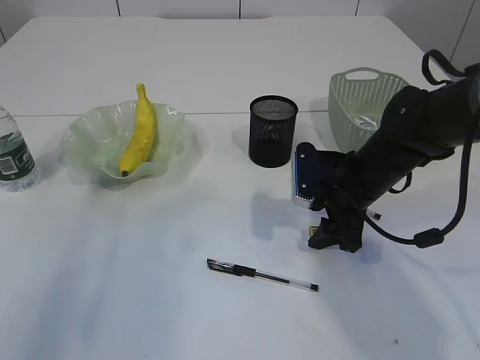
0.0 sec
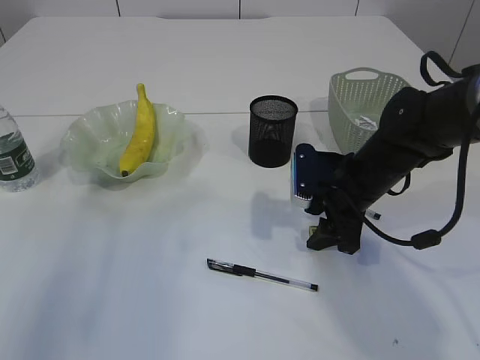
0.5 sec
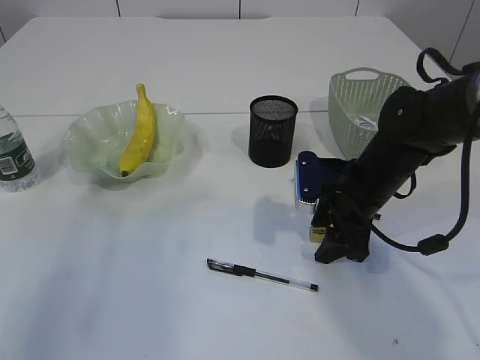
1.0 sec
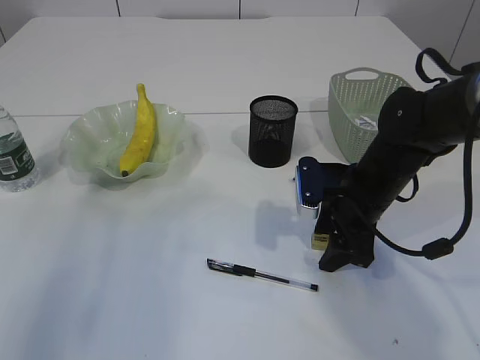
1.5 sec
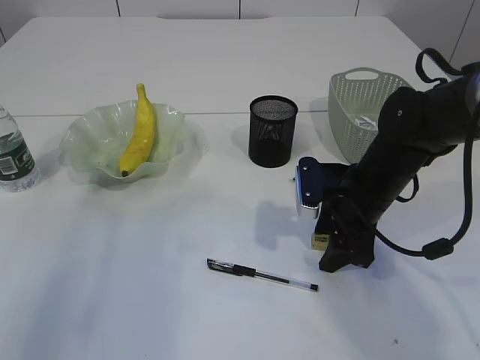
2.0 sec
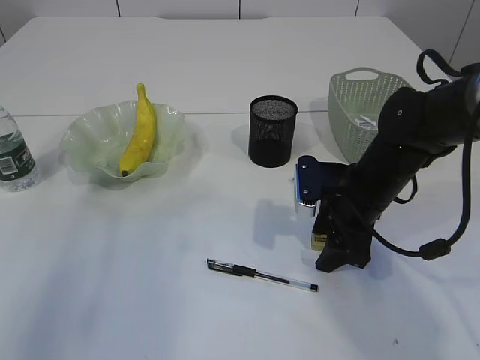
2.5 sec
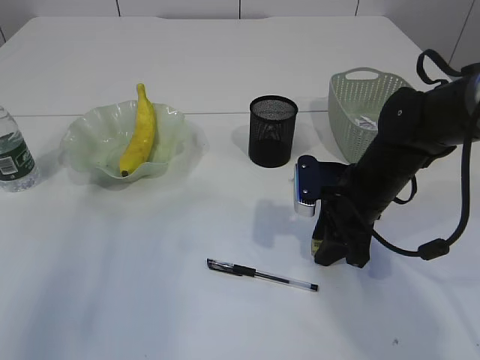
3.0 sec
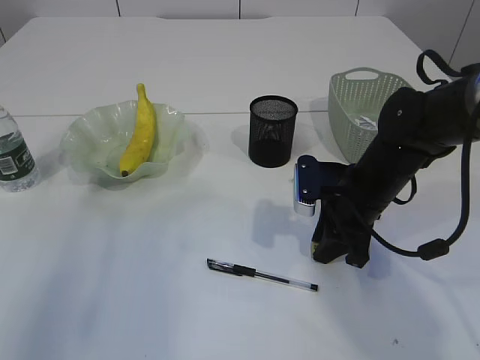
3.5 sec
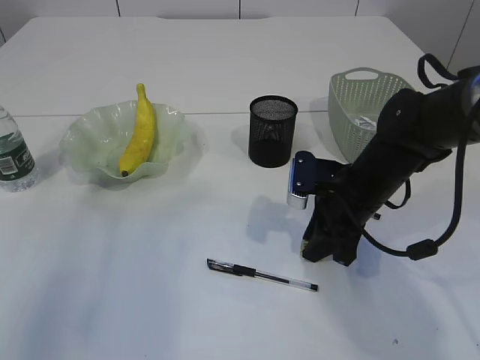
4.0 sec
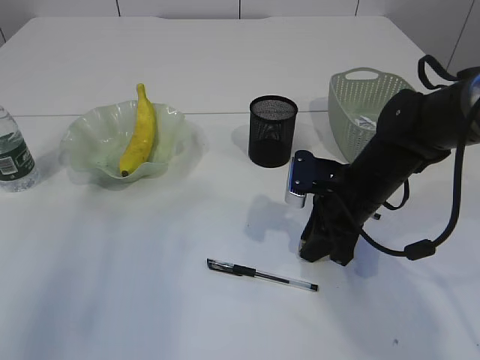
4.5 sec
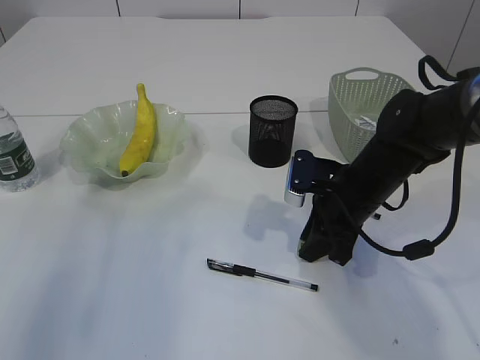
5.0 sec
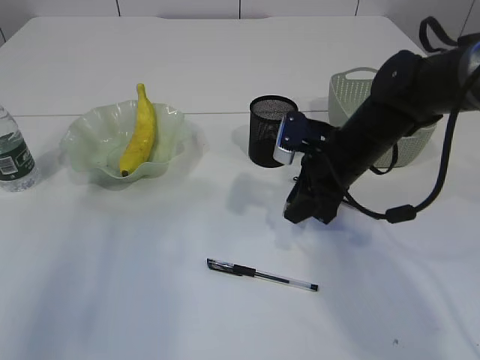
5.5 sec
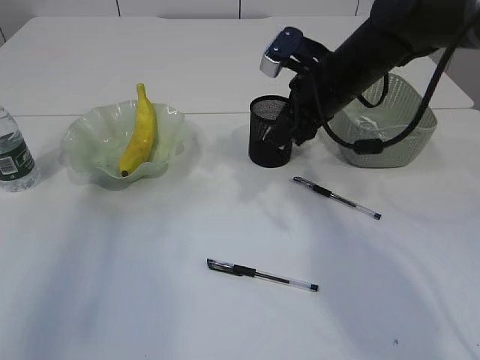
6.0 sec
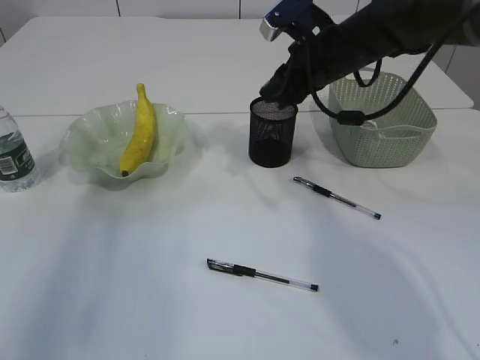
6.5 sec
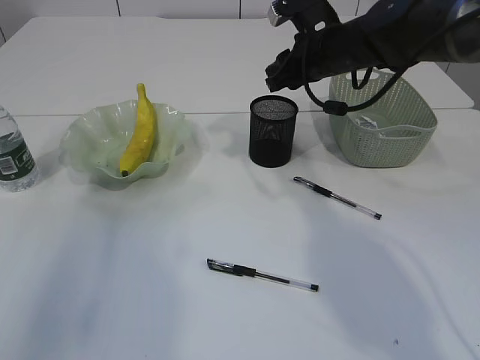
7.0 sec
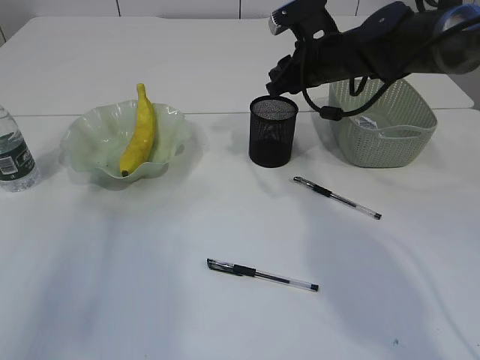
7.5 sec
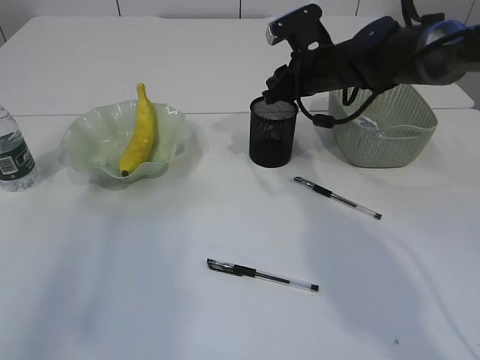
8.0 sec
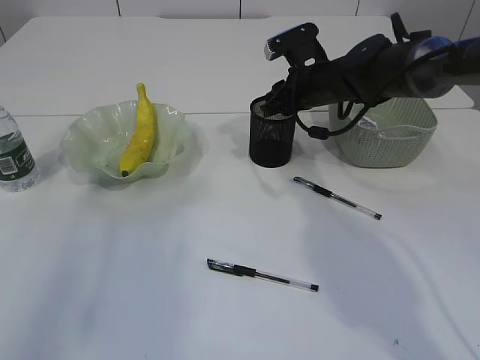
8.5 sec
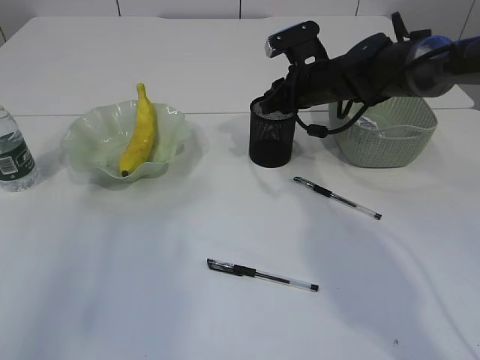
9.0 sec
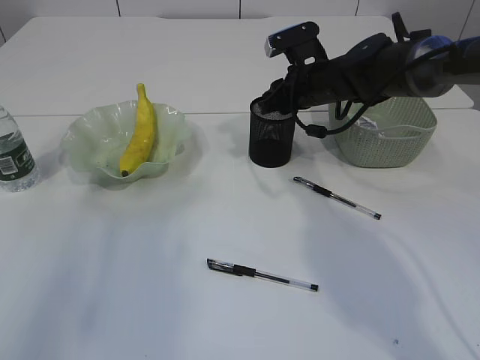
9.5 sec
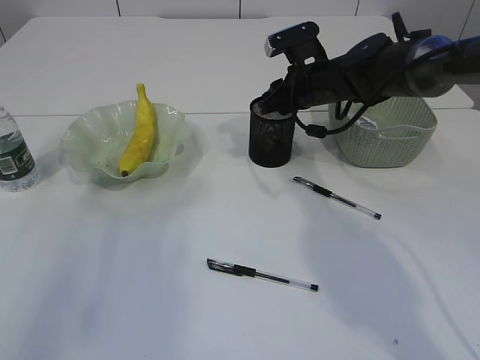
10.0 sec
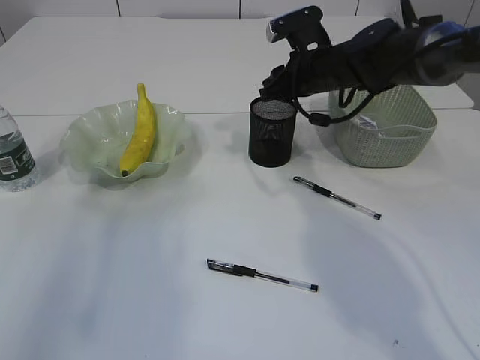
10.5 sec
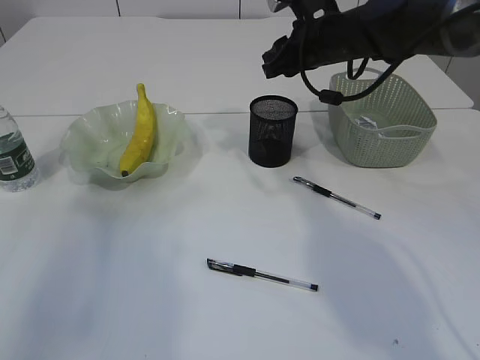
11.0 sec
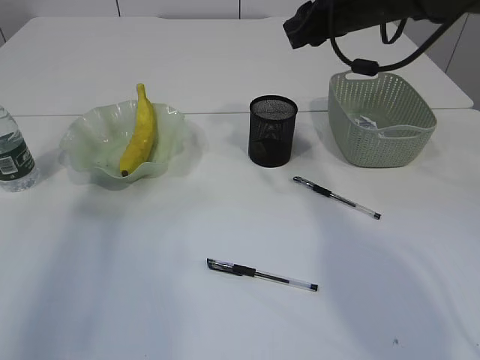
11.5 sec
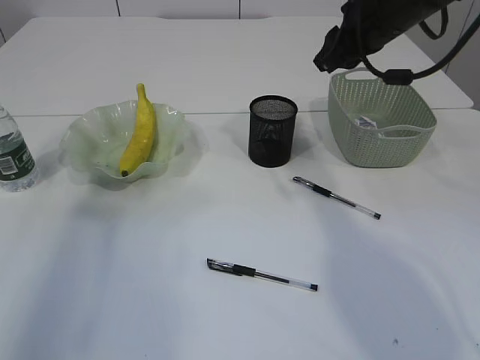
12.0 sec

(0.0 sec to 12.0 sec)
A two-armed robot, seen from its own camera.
Step, 0.0 sec - 5.5 sec: Pick up the eraser.
Step, 6.0 sec - 11.0 sec: Place the eraser into the pen holder.
0.0 sec - 2.0 sec: There are only small adjustments of the grippers.
2.0 sec - 4.0 sec: The right gripper closes its fingers.
4.0 sec - 6.0 sec: The right gripper shifts approximately 15 cm upward and forward.
6.0 sec - 8.0 sec: The right gripper shifts some 10 cm forward.
8.0 sec - 10.0 sec: The grippers stay close to where they were, moving slightly.
10.0 sec - 12.0 sec: The right gripper travels upward and backward by approximately 15 cm.

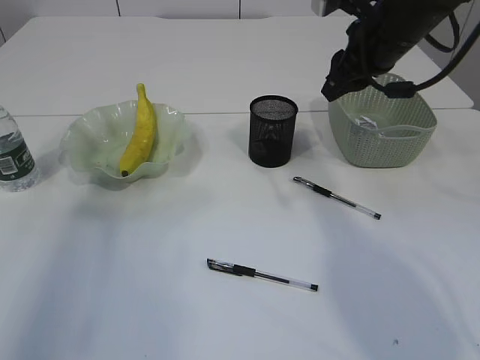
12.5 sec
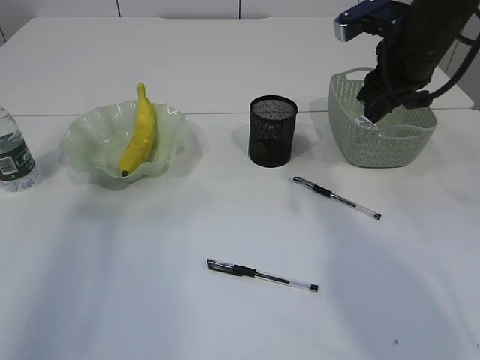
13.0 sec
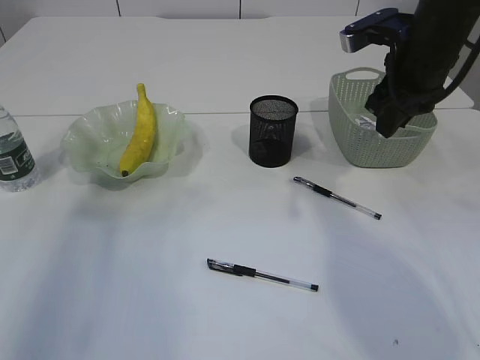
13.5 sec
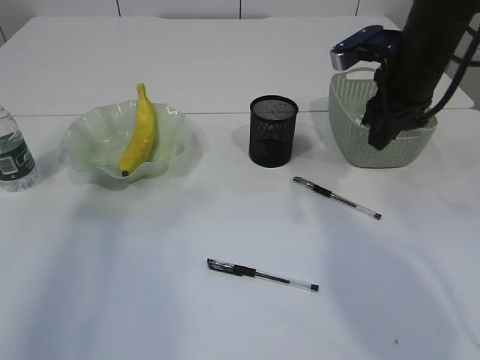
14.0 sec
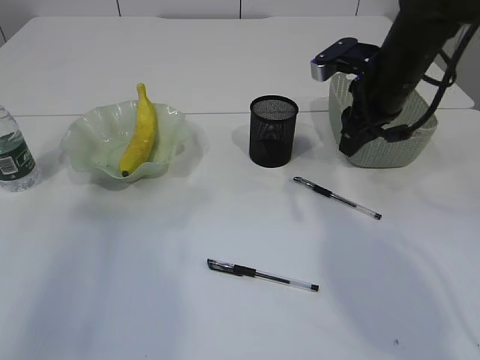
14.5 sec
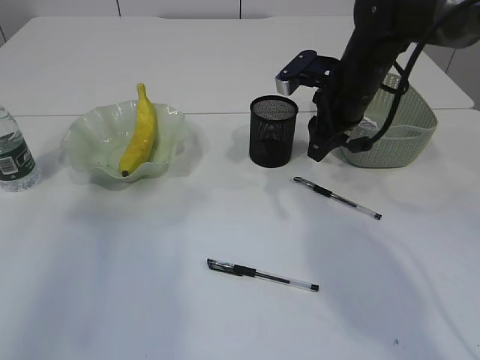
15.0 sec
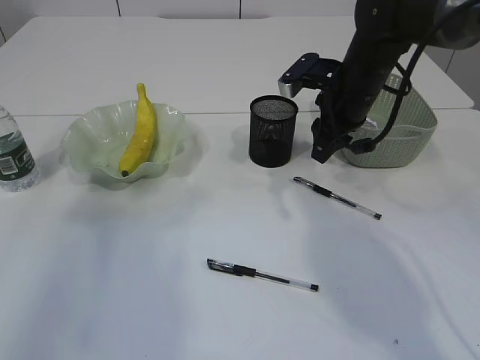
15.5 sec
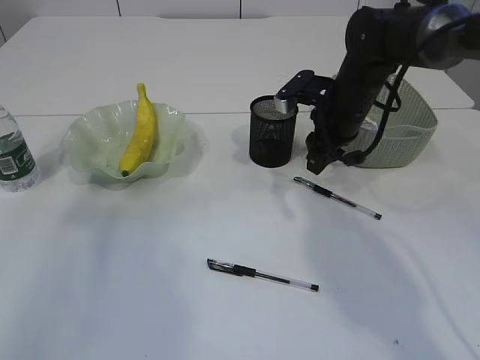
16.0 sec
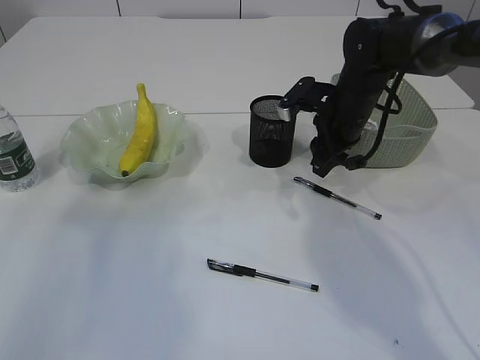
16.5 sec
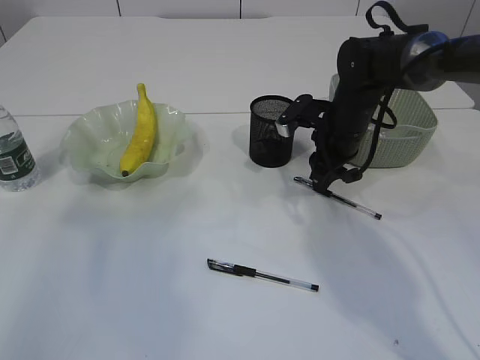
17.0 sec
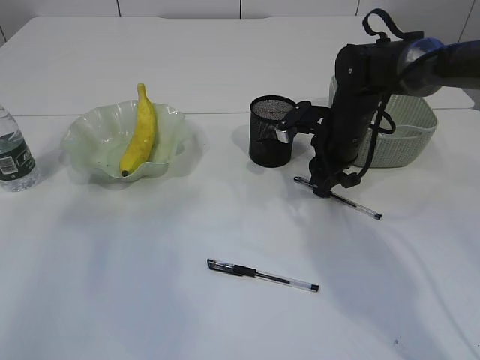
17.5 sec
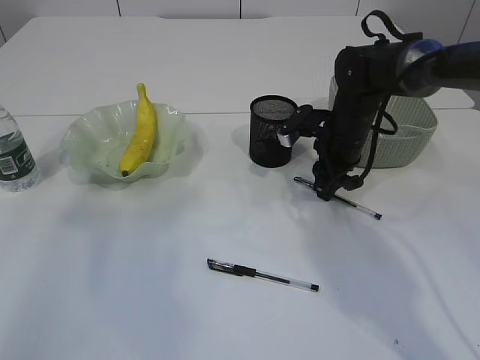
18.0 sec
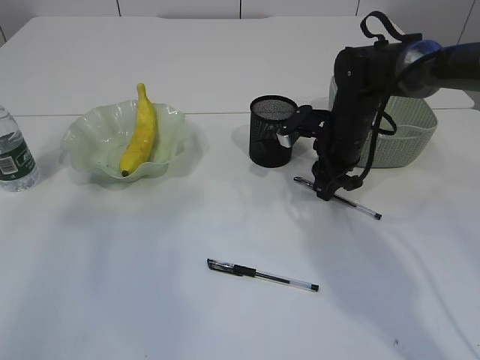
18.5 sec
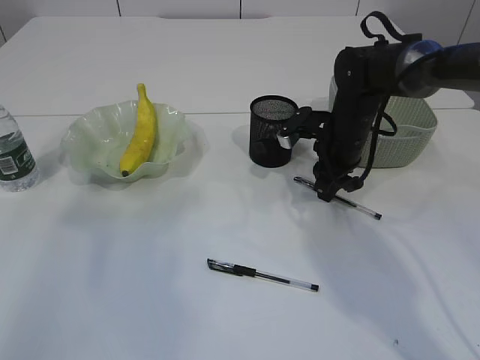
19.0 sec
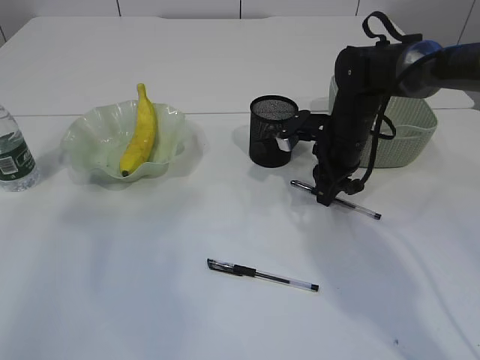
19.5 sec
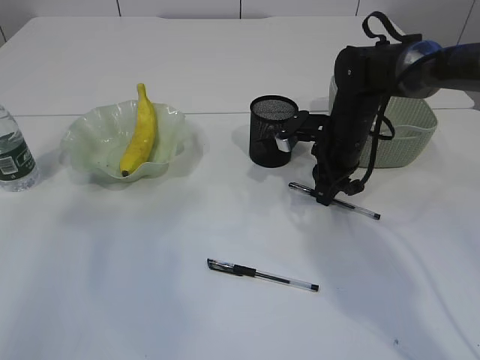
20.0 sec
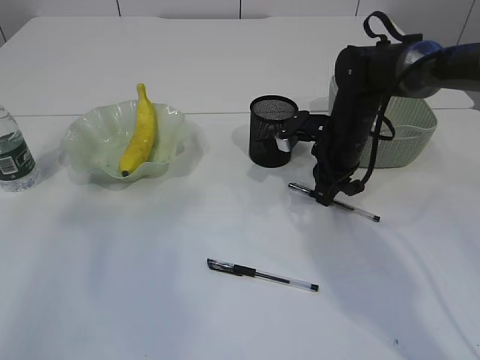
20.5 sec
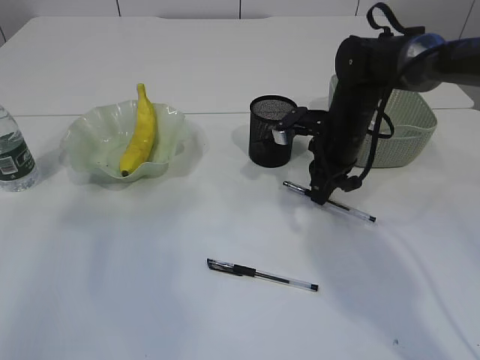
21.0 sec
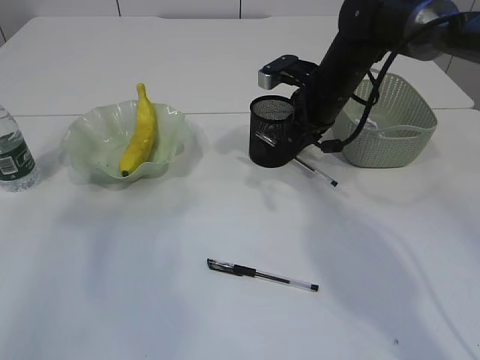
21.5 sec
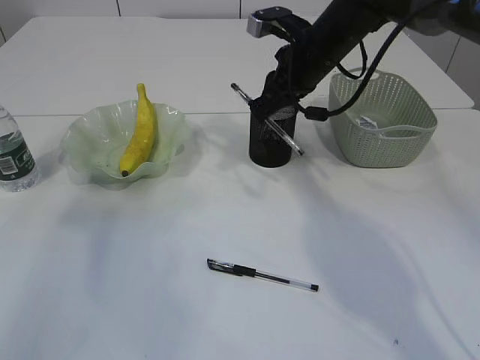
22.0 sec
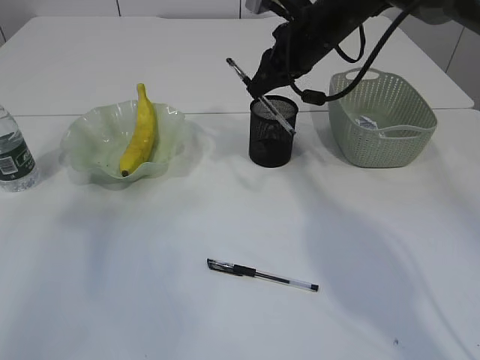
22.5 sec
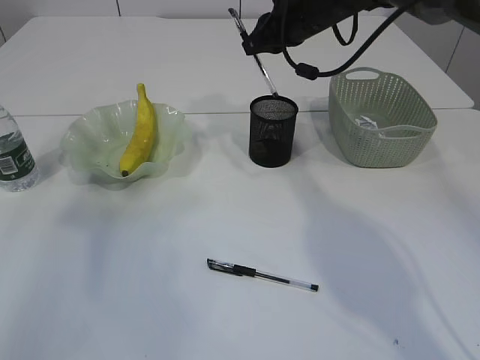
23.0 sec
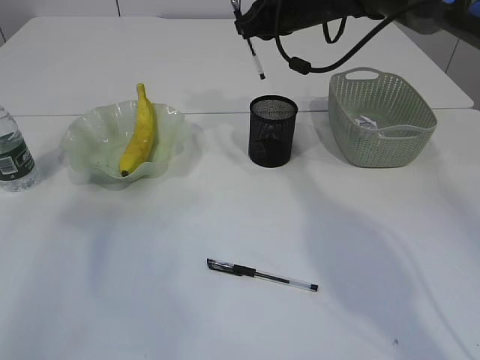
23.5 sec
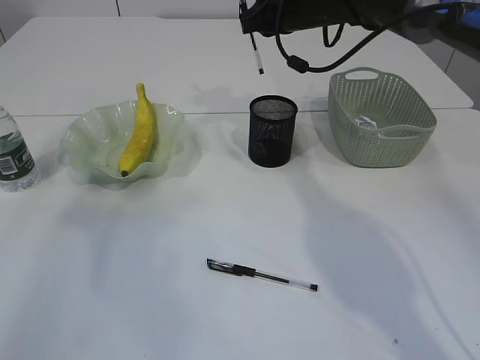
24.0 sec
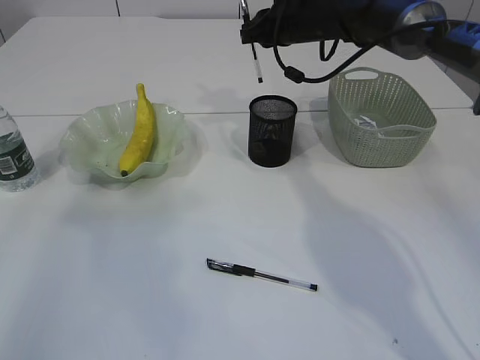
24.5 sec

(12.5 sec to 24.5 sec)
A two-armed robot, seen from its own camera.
Step, 12.5 sec - 21.5 sec: Pick up the pen with right arm.
12.5 sec - 14.5 sec: The right gripper heads downward, covering some 5 cm.
14.5 sec - 16.5 sec: The right gripper travels downward by approximately 5 cm.
16.5 sec - 20.5 sec: The grippers move only a little.
20.5 sec - 22.5 sec: The right gripper moves upward, some 15 cm.
22.5 sec - 24.5 sec: The right gripper travels forward by some 5 cm.

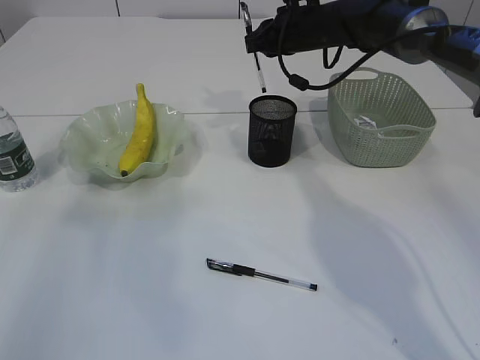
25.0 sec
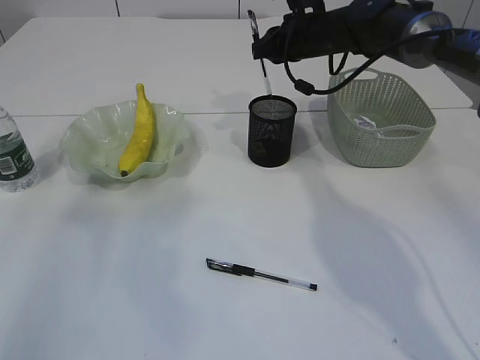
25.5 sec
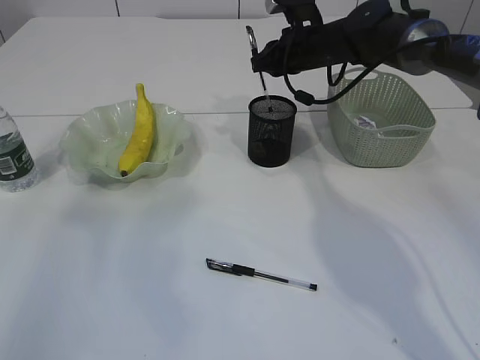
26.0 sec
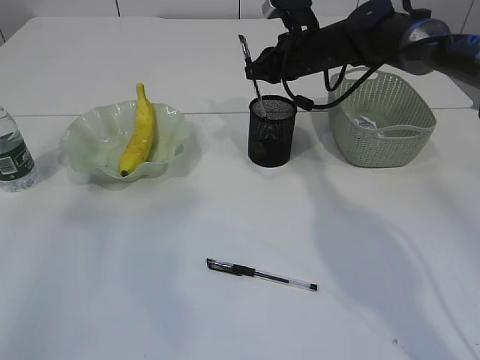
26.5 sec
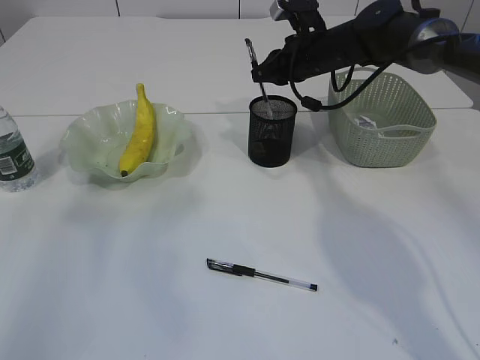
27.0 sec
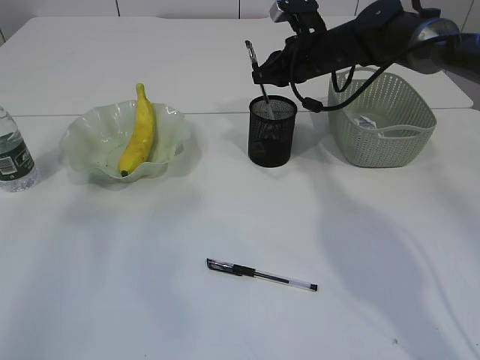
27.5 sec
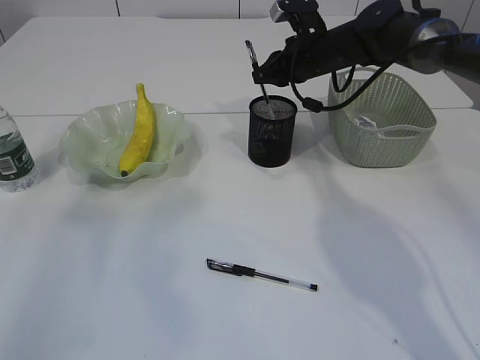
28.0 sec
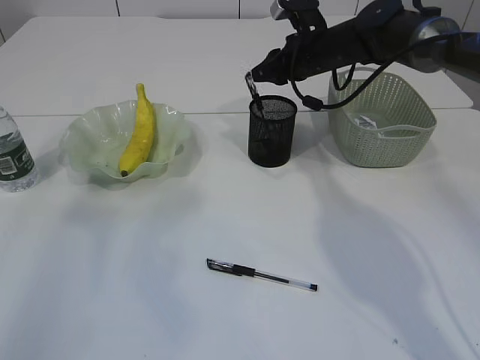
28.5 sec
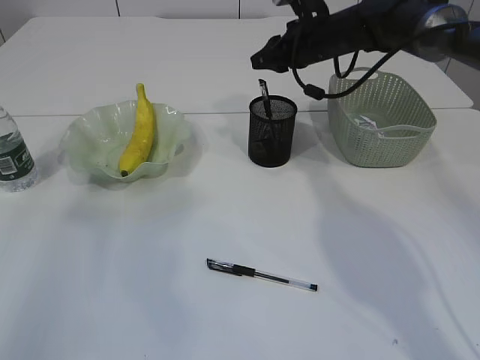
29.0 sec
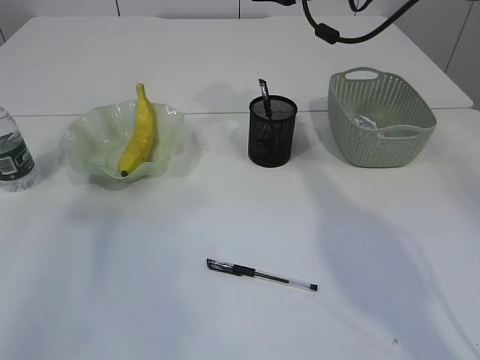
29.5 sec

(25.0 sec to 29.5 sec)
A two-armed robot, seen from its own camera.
Step, 25.0 sec - 29.0 sec: Place the pen into the pen holder.
25.0 sec - 27.0 sec: The grippers make only small movements.
27.0 sec - 29.5 sec: The right gripper travels upward by approximately 10 cm.
